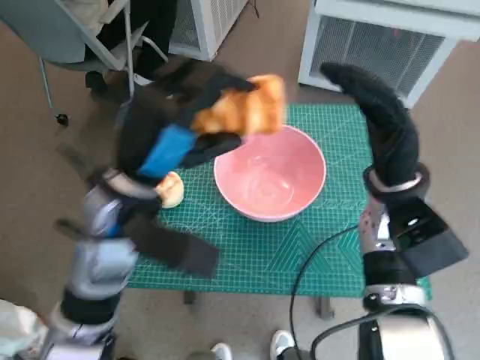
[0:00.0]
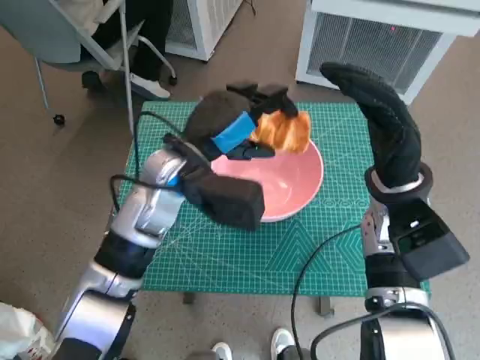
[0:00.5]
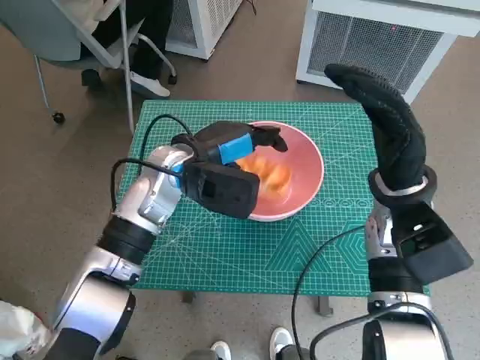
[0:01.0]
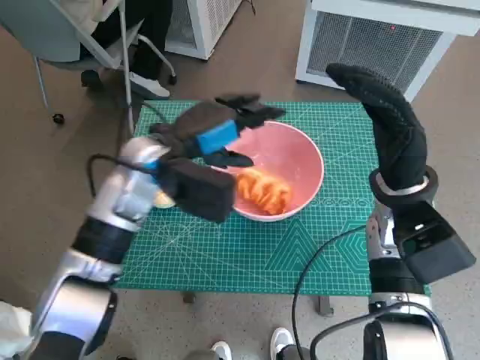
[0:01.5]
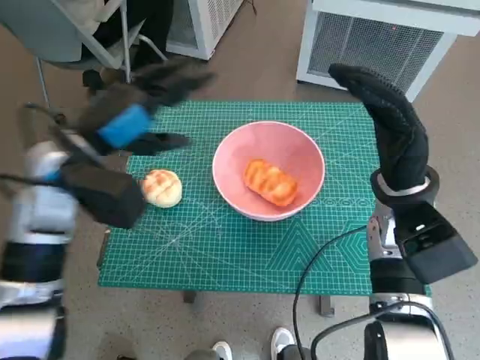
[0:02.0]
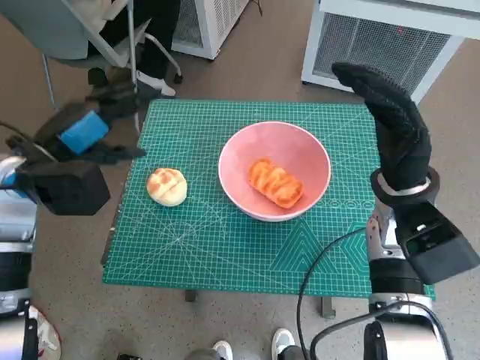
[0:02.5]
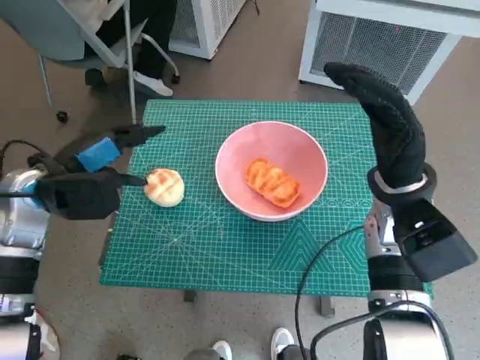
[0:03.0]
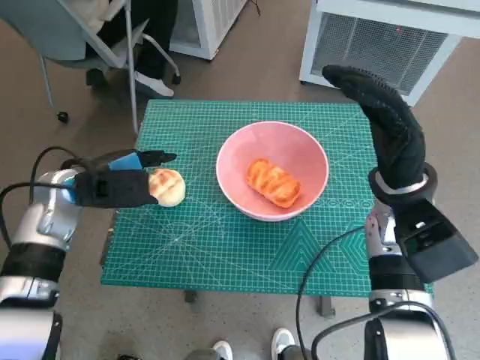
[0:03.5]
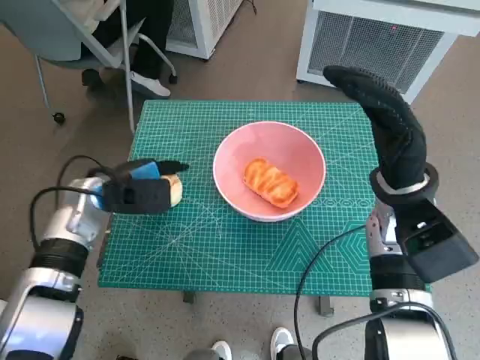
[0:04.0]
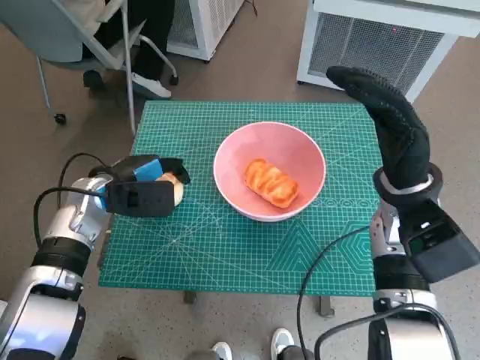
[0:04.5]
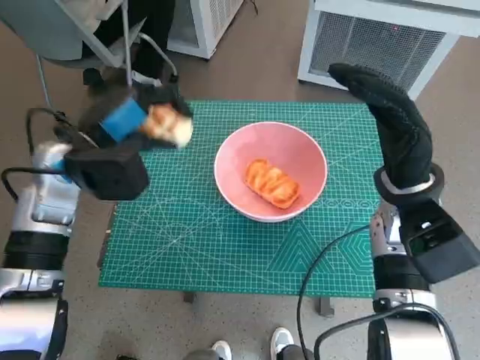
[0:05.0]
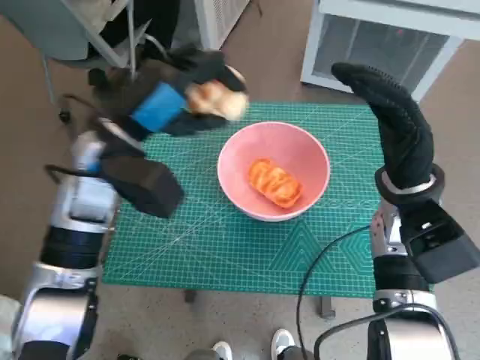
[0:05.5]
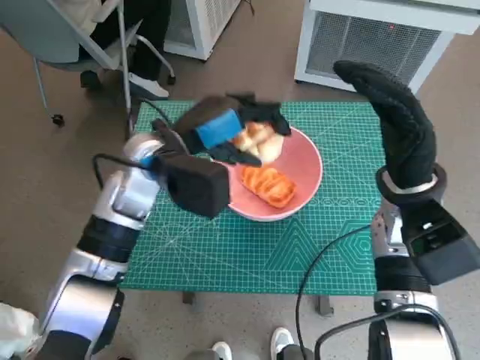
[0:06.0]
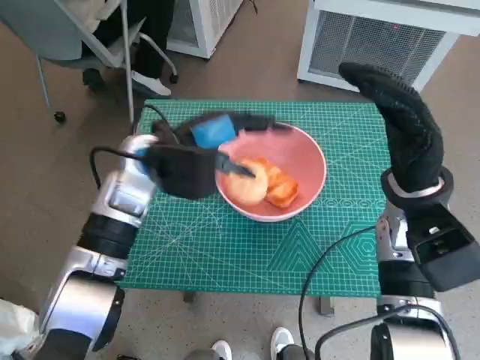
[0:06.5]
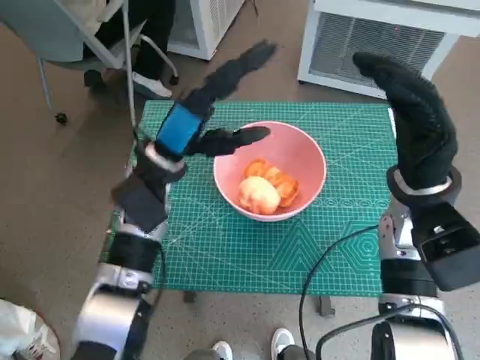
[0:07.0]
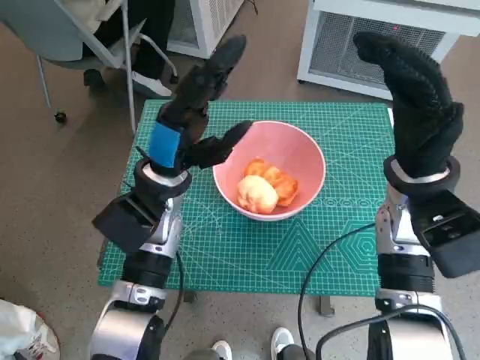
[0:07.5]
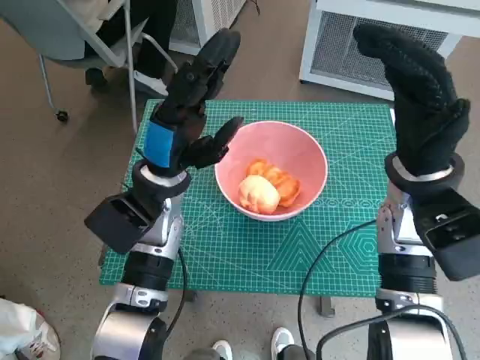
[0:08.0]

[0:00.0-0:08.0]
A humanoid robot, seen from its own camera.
Task of the whole recording: Push the bowl to the center of the table and put the bread into the bowl.
Step, 0:01.5 to 0:04.0: Grasp the round bread with left hand.
Step, 0:04.5 to 0:06.5: Place the round bread in pink bowl with left hand.
0:00.0 to 0:02.0: The left hand shifts about 10 cm to the left and forward.
0:02.0 to 0:04.0: The left hand shifts approximately 10 cm downward.
0:04.0 to 0:06.0: The left hand is displaced to the right and upward by roughly 15 cm.
0:06.0 to 0:08.0: The left hand shifts by roughly 5 cm.
